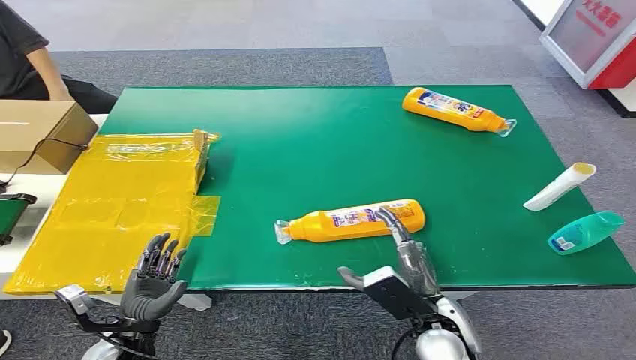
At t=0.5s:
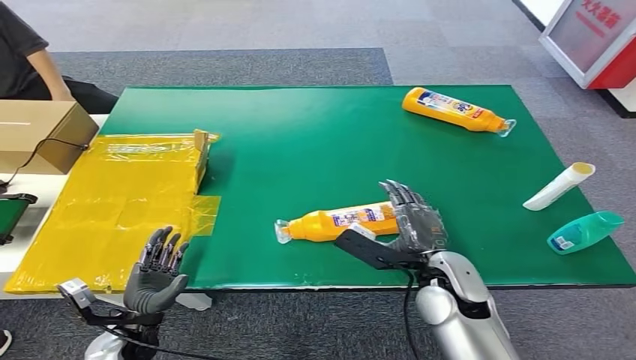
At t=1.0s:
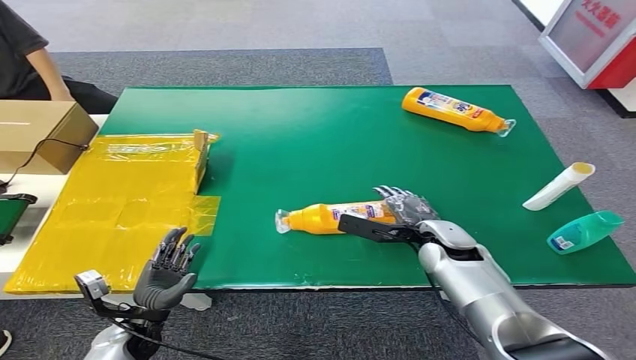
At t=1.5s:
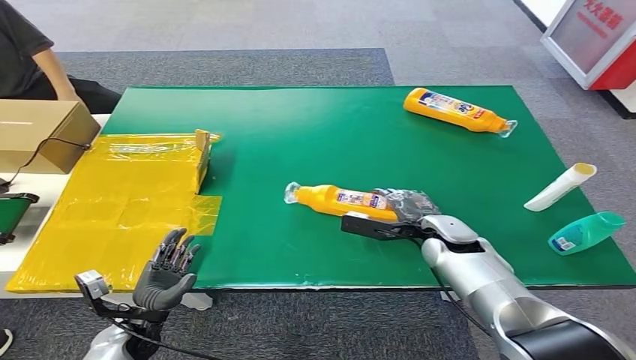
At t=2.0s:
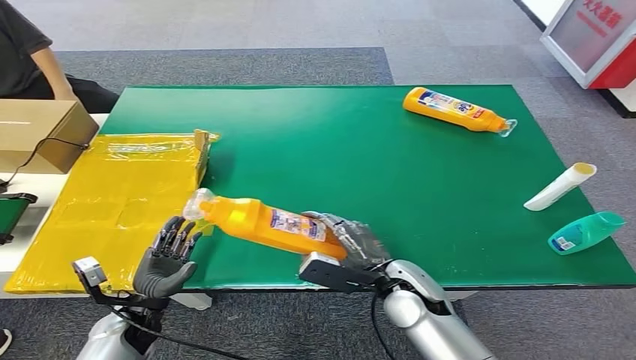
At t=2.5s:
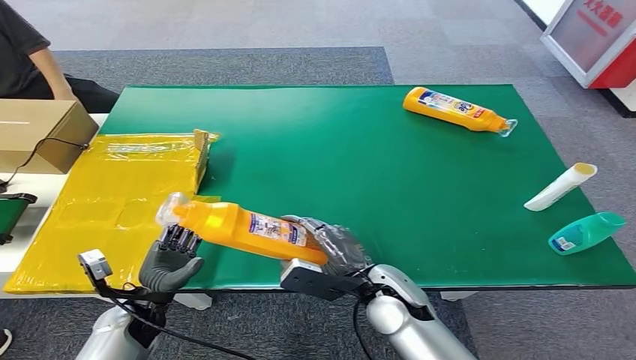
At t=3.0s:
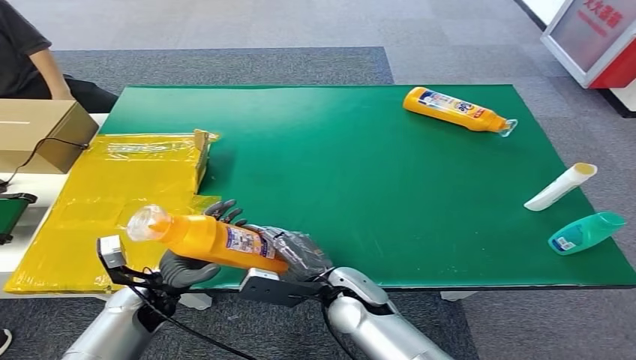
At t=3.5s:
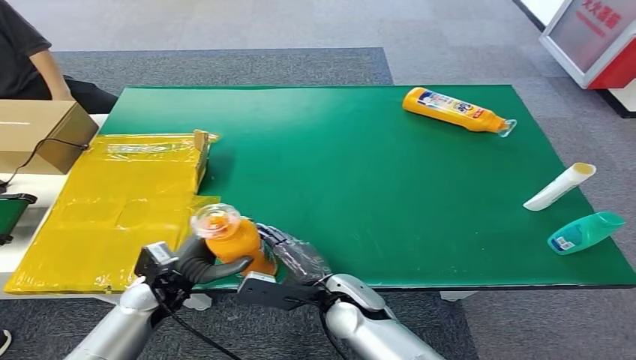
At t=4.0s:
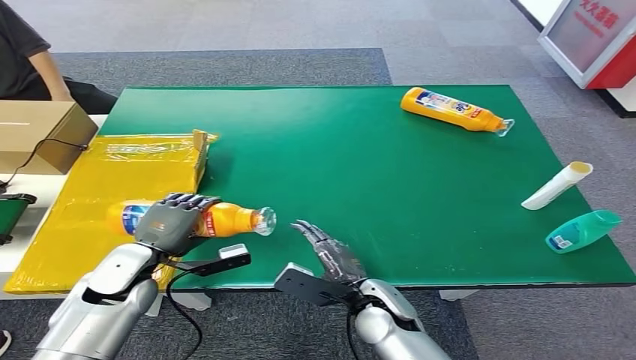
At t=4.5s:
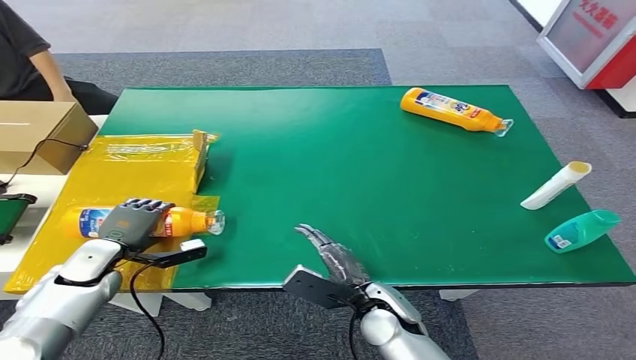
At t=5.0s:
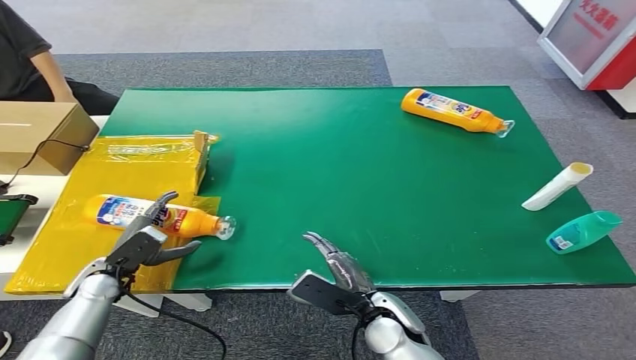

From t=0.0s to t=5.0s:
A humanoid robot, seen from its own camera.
Step, from t=0.0s to t=2.0s: Pick up the bottle from the table.
Step, from t=2.5s to t=5.0s: Turn the bottle to the front side.
From t=2.5s to t=5.0s: The right hand travels downward by roughly 5 cm; the left hand moves to the left and forward, some 10 cm.

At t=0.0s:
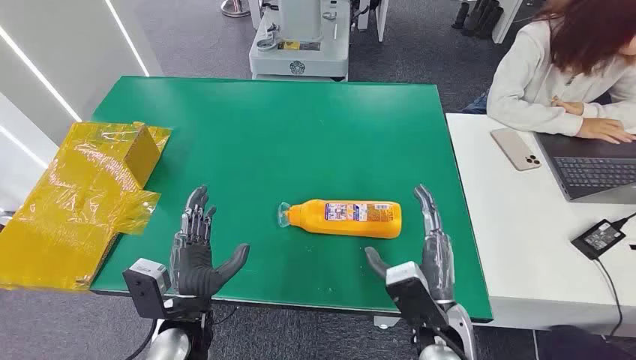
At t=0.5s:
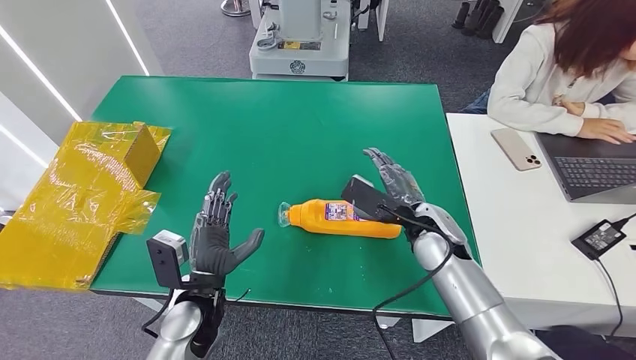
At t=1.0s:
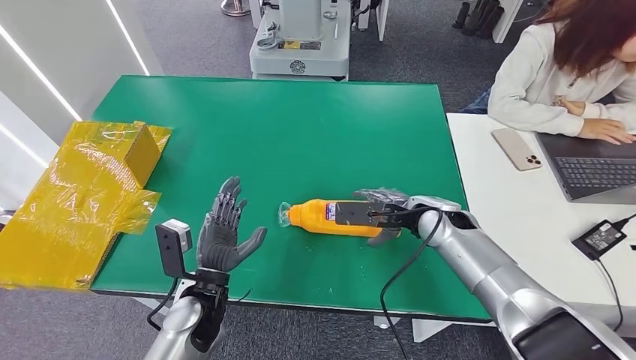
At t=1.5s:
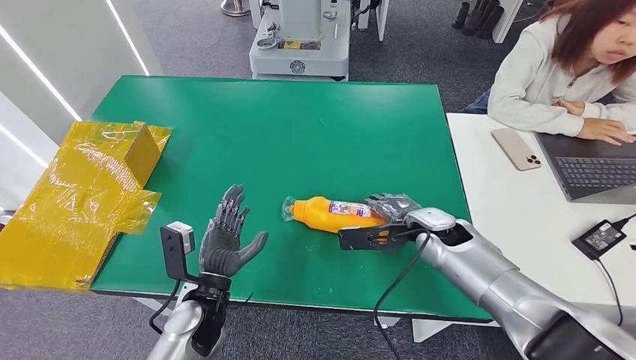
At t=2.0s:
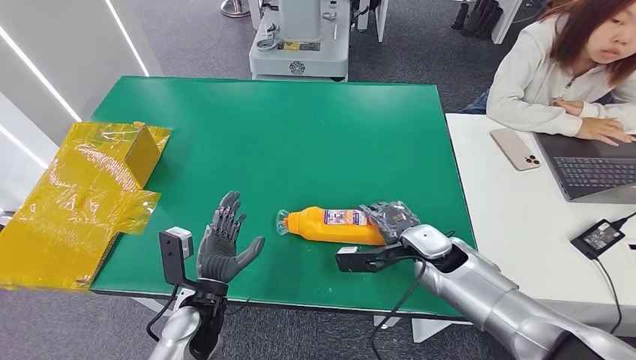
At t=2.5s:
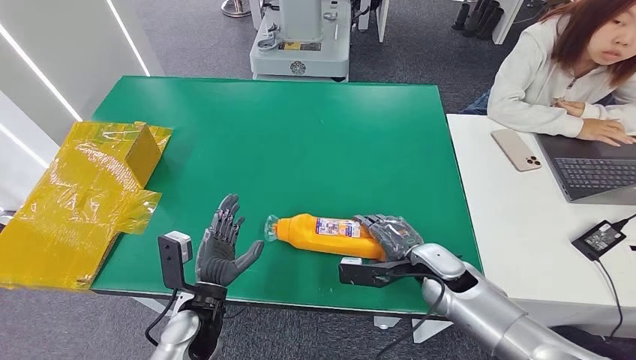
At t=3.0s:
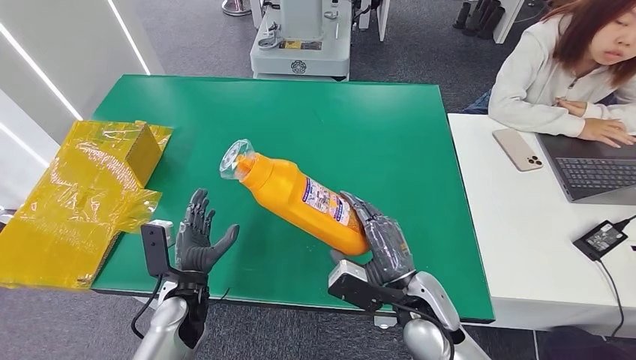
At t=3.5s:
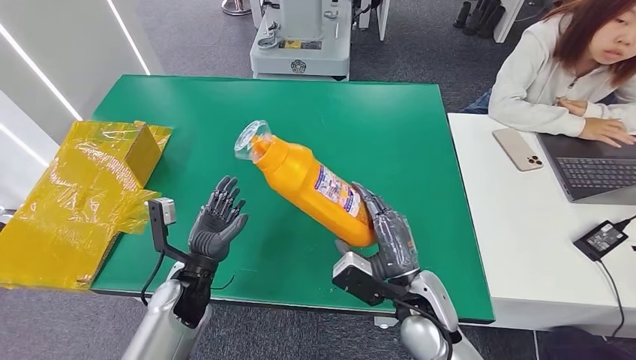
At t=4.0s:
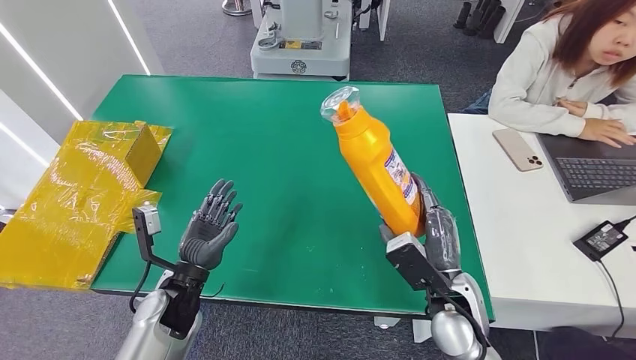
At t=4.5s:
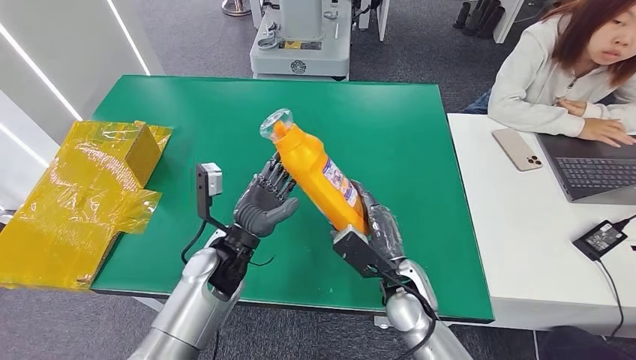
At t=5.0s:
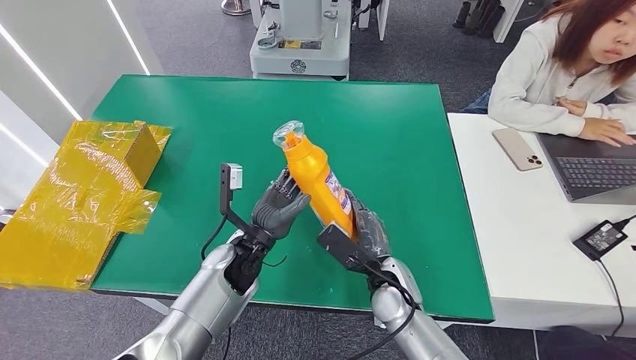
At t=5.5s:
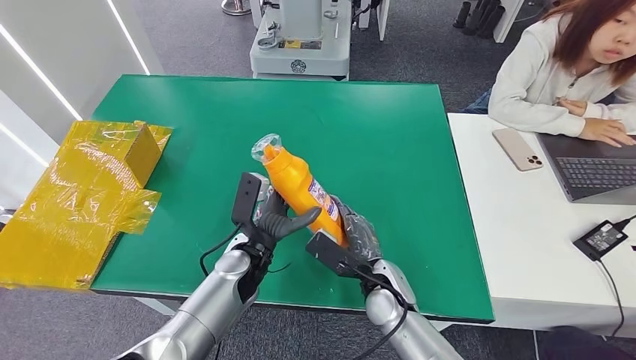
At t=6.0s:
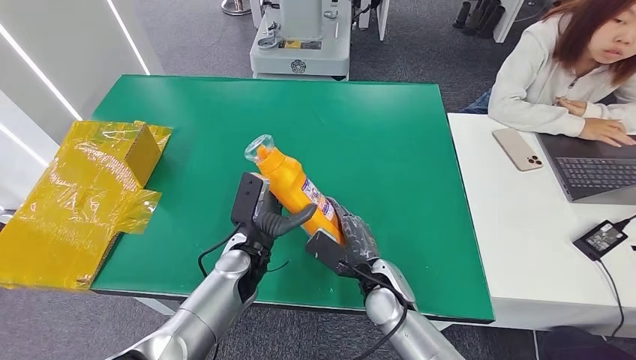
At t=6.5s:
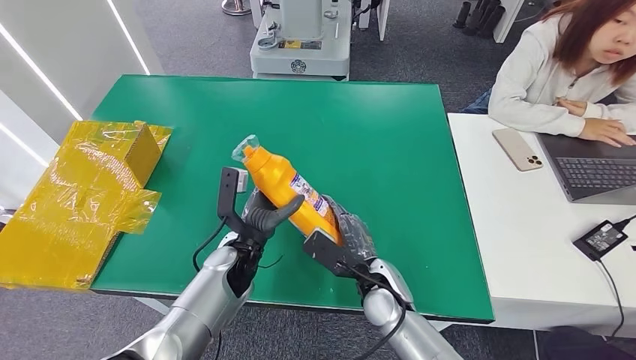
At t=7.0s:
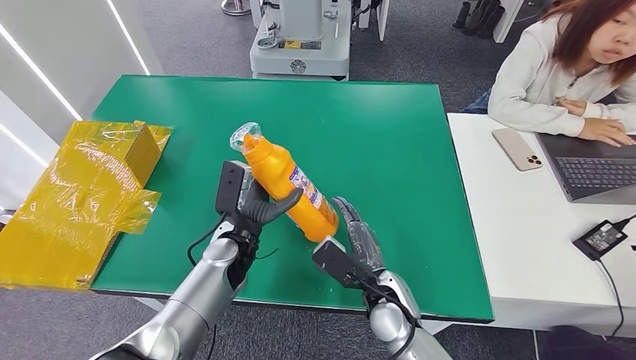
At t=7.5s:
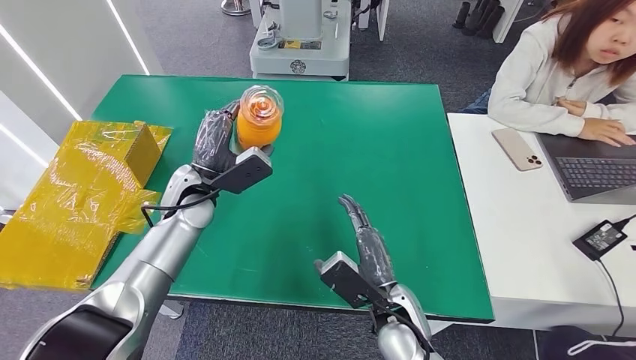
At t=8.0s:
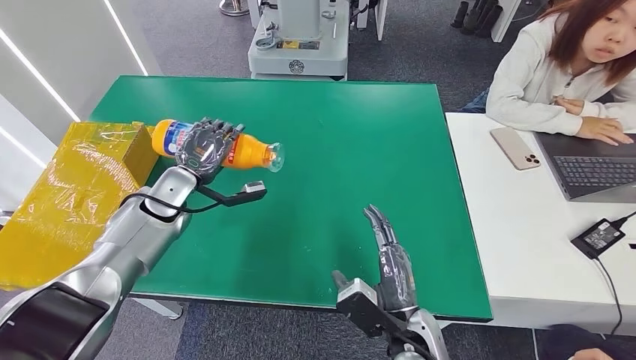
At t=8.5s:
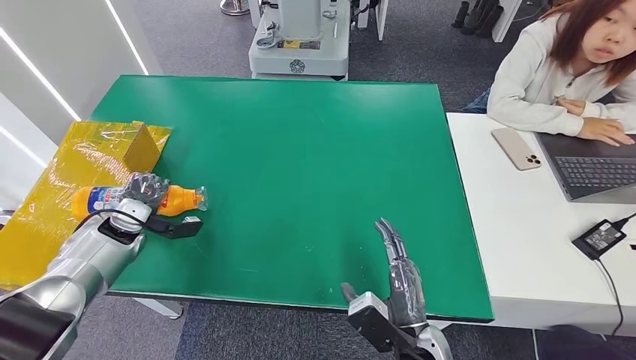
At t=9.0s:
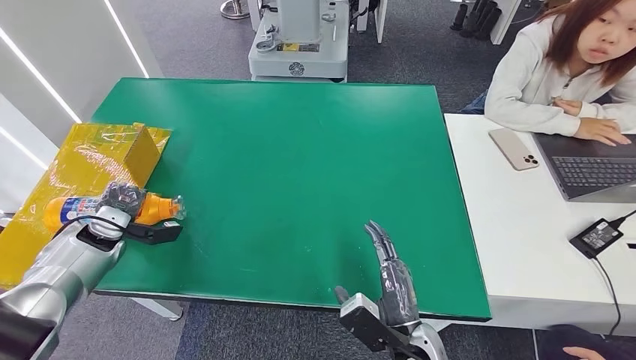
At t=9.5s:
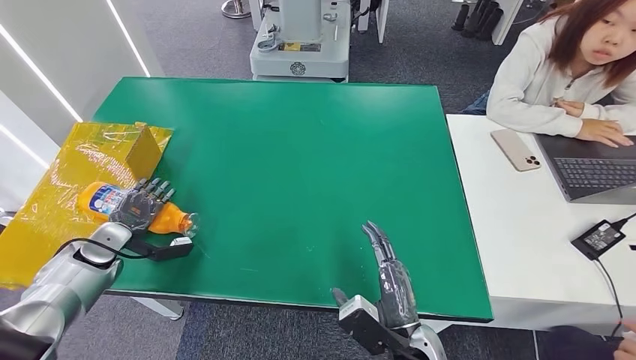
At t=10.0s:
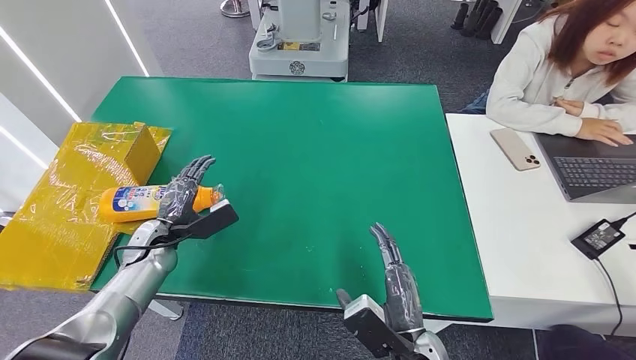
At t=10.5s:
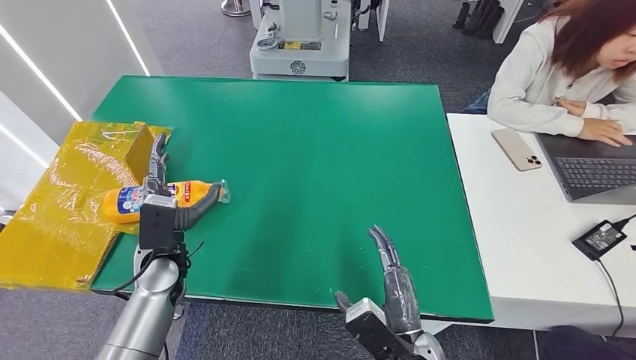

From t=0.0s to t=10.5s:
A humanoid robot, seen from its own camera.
Step, from t=0.0s to t=3.5s: Pick up the bottle from the table.
Step, from t=4.5s to t=10.5s: Turn the bottle to the front side.
From t=4.0s to t=6.5s: The left hand is displaced to the right and forward by some 10 cm; the right hand shifts about 10 cm to the left.
From t=8.5s to t=10.5s: The left hand heads to the right and backward, covering approximately 15 cm.

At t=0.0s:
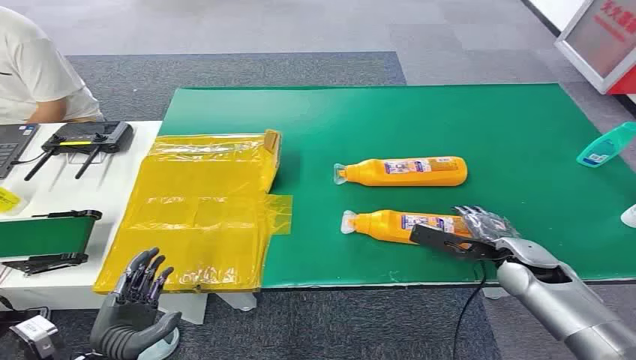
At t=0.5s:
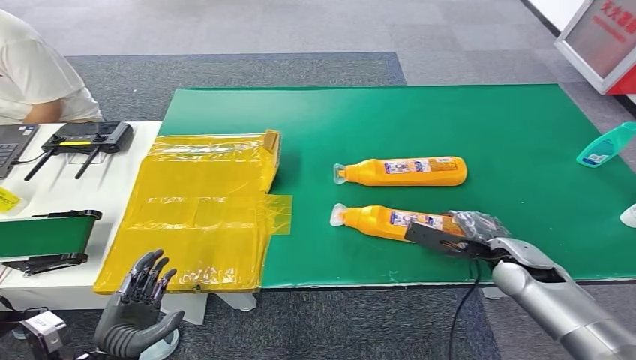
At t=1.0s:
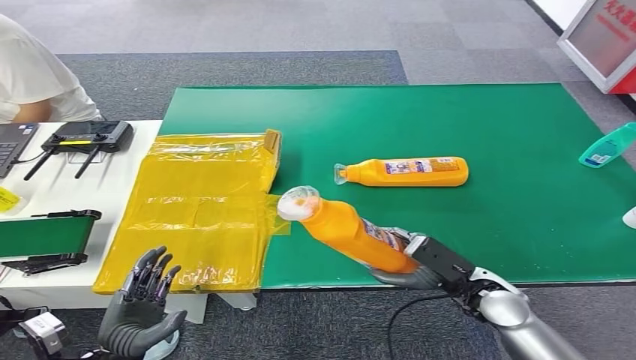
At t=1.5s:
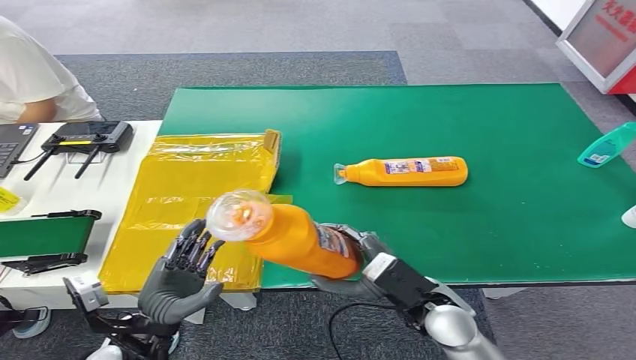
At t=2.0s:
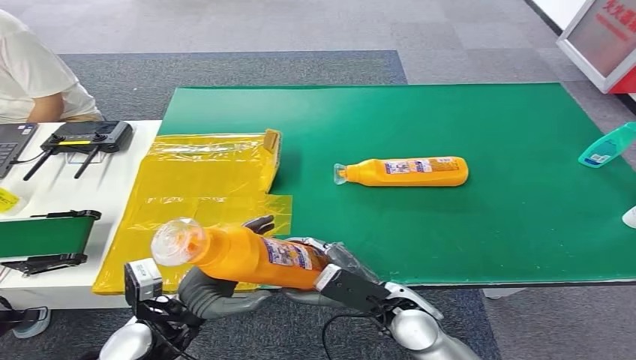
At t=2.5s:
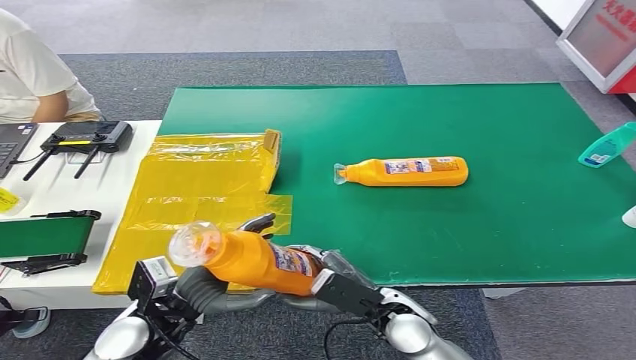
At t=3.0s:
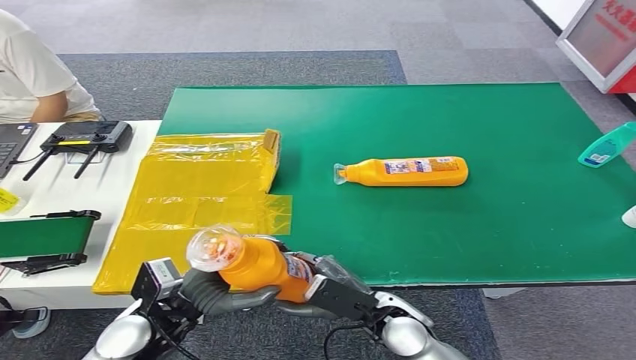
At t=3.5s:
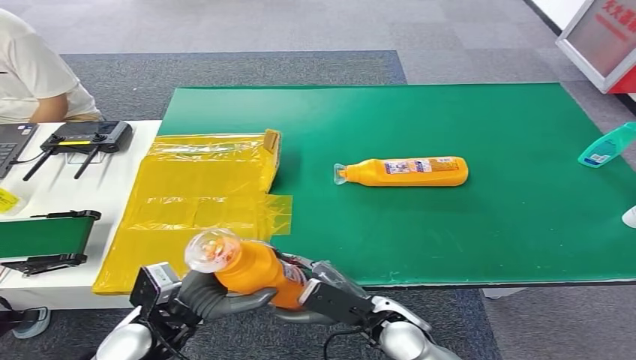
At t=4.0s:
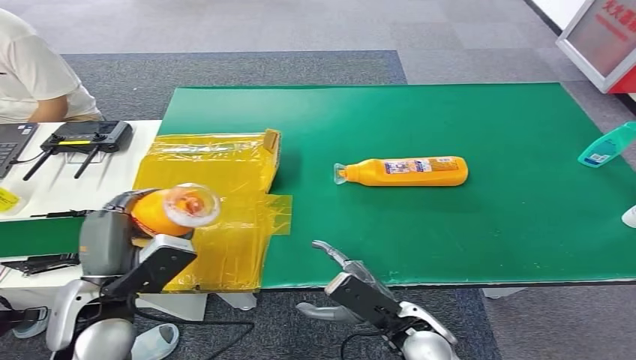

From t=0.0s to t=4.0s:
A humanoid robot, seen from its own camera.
Step, from t=0.0s to t=1.5s: Pick up the bottle from the table.
From t=2.0s to t=4.0s: The right hand ends up approximately 5 cm from where it was, while the left hand heads upward, covering about 5 cm.
